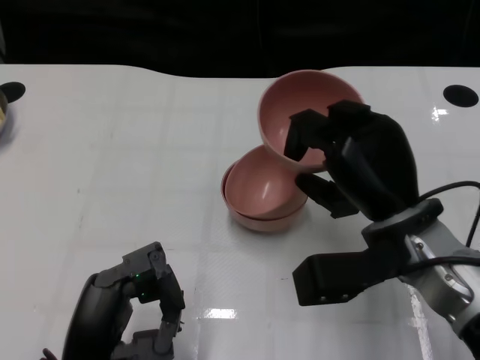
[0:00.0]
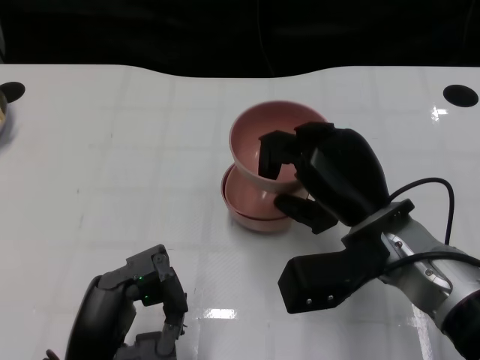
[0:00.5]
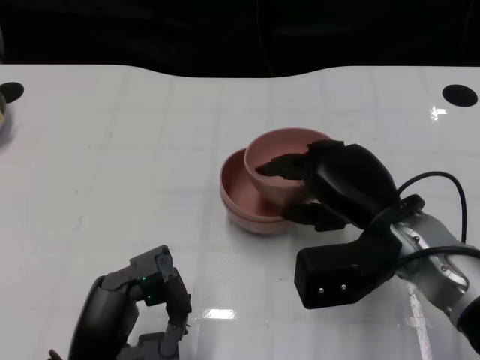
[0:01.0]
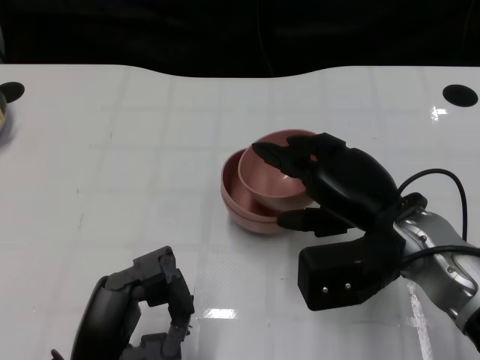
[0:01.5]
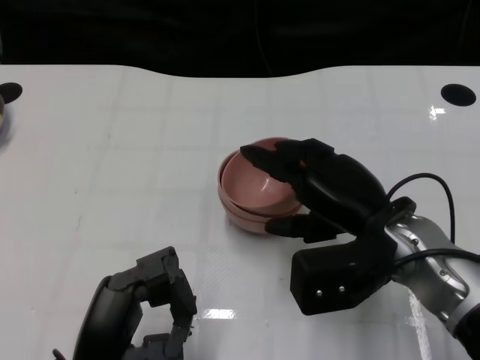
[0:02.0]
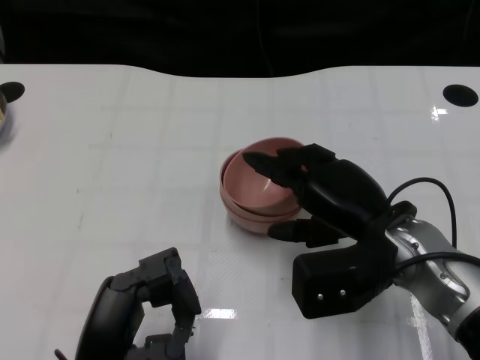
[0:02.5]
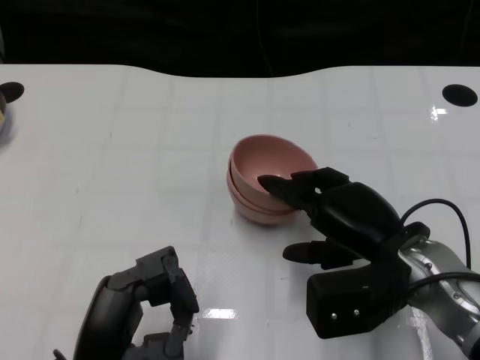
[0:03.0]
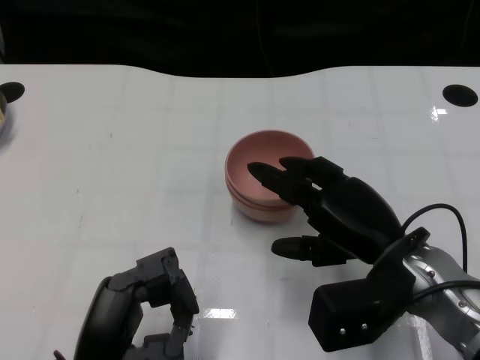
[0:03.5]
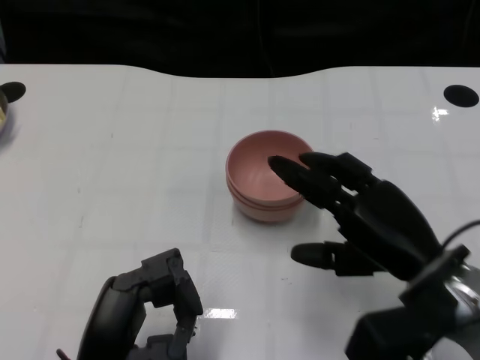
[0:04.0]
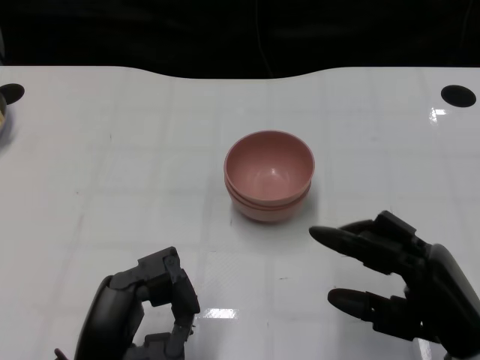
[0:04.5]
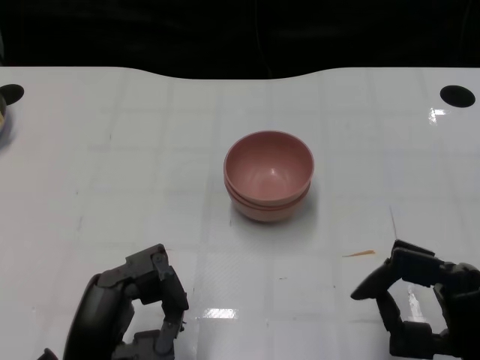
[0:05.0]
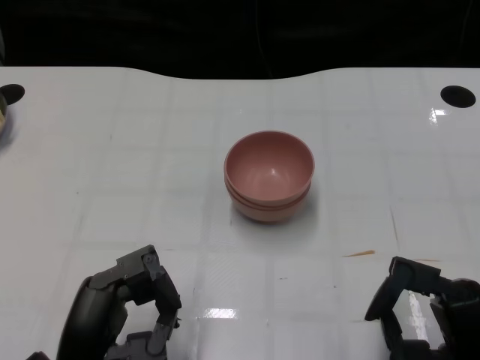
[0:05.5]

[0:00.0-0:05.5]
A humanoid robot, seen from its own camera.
Task of the whole recording: Pick up the bowl on one side of the table and place it on top of the middle bowl, then pick up the bowl on the other side of the table and place it on top of the middle bowls.
Step, 0:00.0 to 0:03.5: Place the bowl on the right onto the bowl in the middle with right gripper.
0:02.0 to 0:03.5: The hands move only a little.
0:03.5 to 0:05.5: The right hand goes approximately 15 cm backward and to the right.

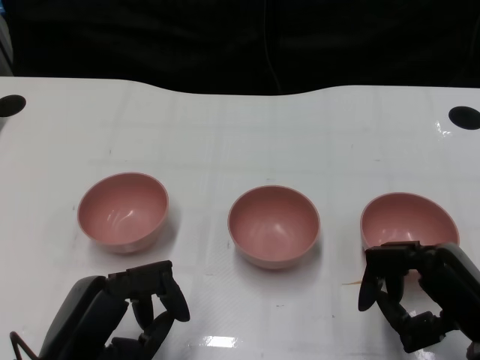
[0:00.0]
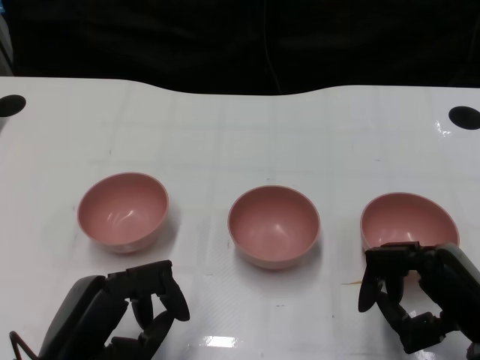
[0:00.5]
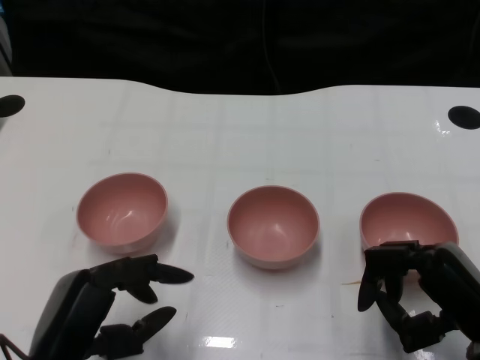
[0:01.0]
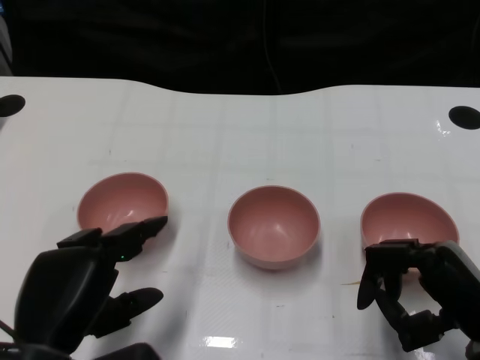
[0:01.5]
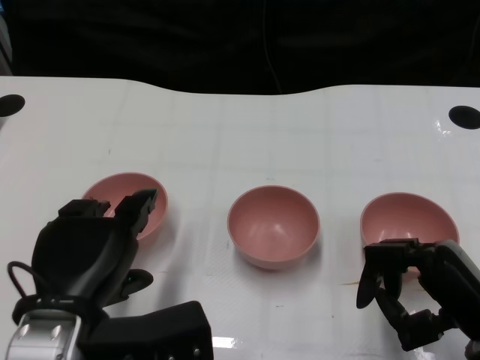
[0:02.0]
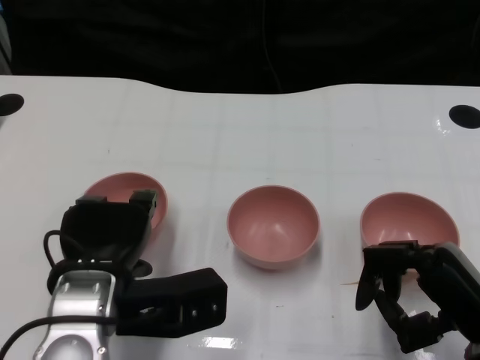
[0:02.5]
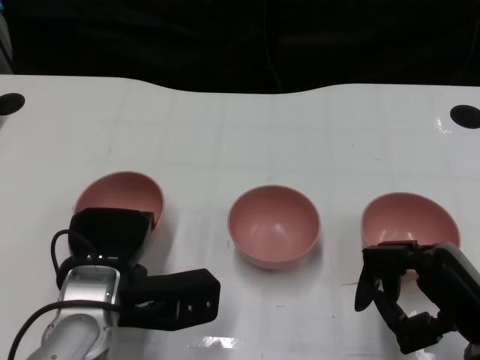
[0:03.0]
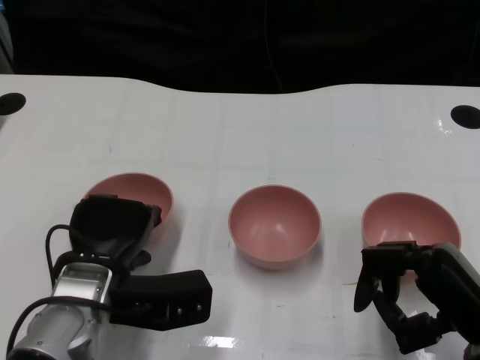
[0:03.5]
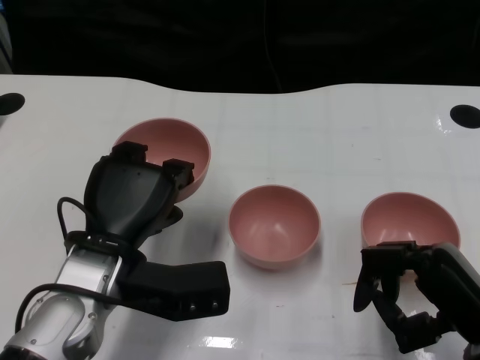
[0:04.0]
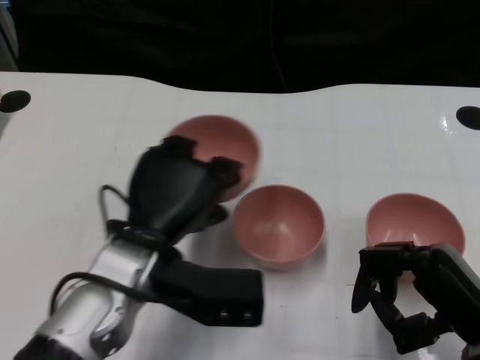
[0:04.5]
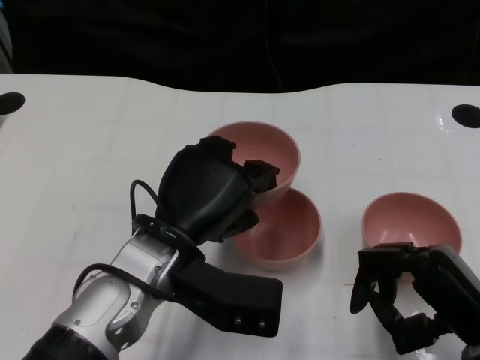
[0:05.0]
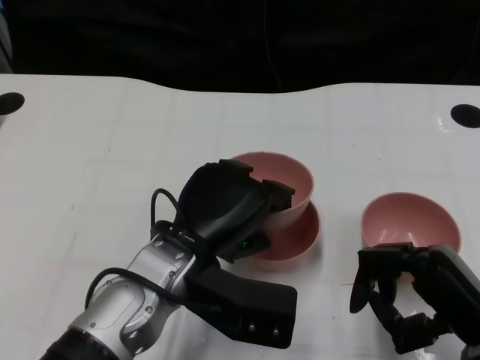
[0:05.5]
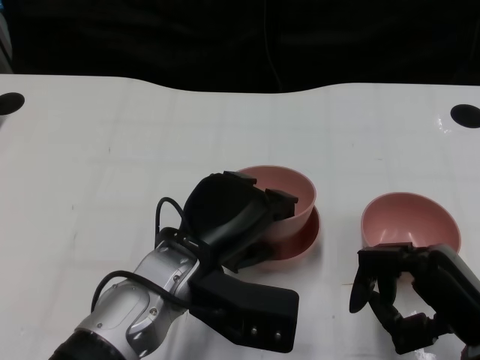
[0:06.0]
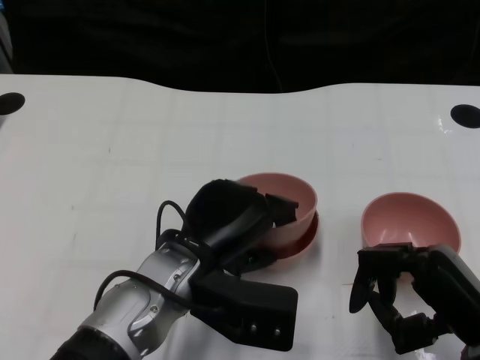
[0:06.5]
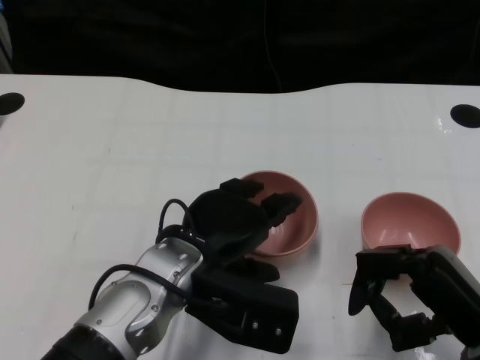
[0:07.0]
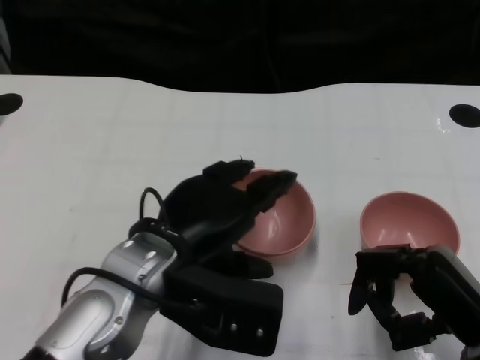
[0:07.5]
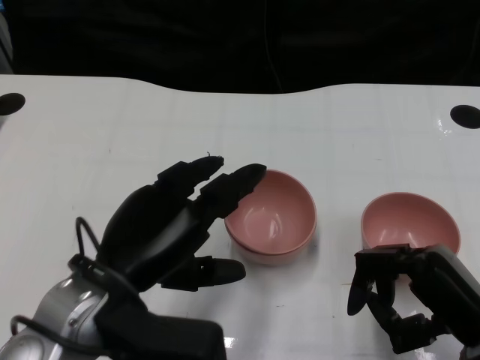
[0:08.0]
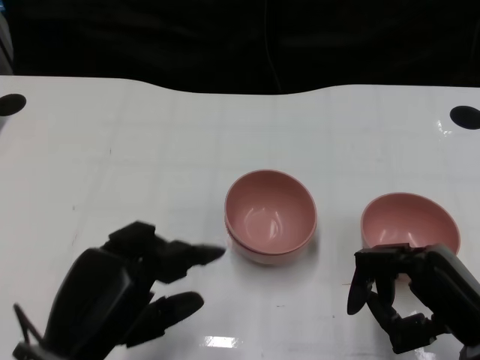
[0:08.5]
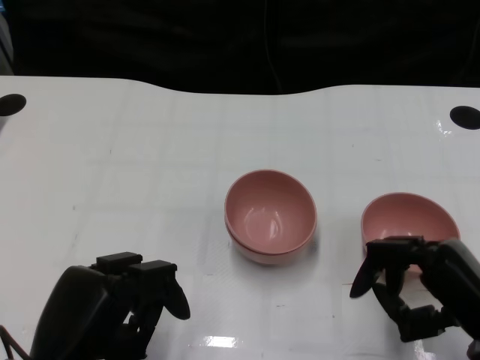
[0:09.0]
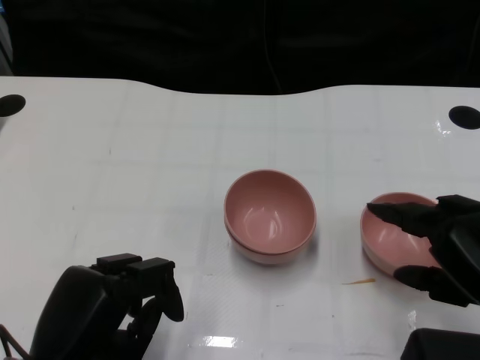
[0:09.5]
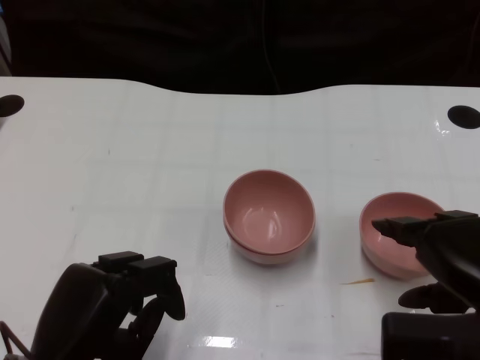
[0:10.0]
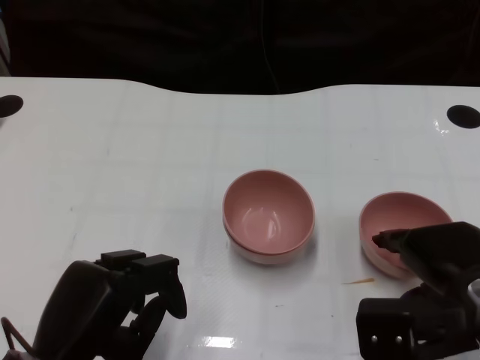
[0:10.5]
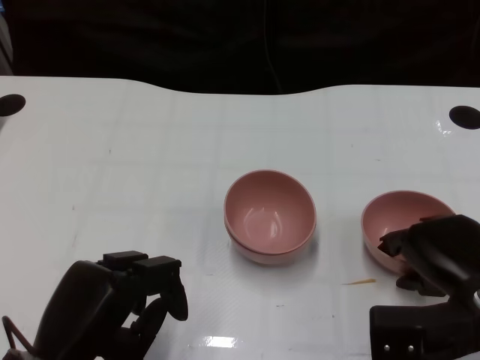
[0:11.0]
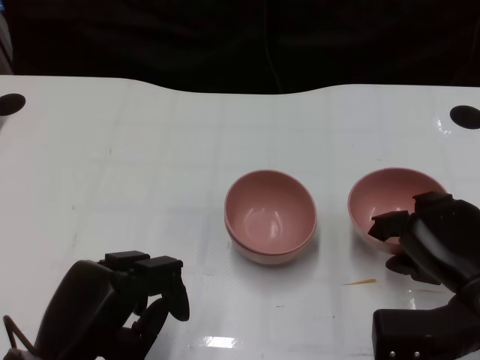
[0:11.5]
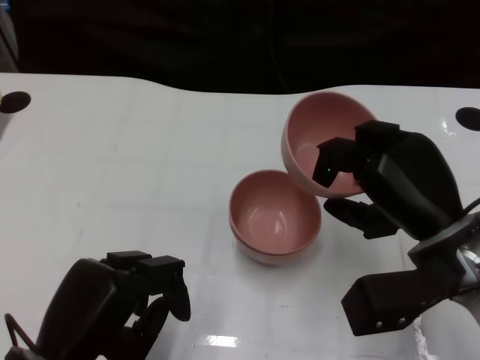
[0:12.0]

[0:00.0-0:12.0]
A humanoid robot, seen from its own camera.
Task of the whole recording: Pick up the bowl on one side of the table and place it on top of the middle bowl, then pick up the bowl on the other side of the table and place it on top of the middle bowls.
Step, 0:01.0 to 0:03.0: Grasp the bowl on the left with the left gripper.
Step, 0:04.0 to 0:07.5: Place the bowl on the left onto the bowl in the middle with left gripper.
Step, 0:08.0 to 0:11.0: Grasp the bowl on the right with the right gripper.
0:02.0 to 0:04.0: The left hand travels forward by about 5 cm.
0:04.0 to 0:06.0: The left hand is displaced to the right by roughly 5 cm.
0:06.0 to 0:08.0: The left hand moves to the left, some 5 cm.
0:08.0 to 0:10.0: The left hand goes some 10 cm downward, backward and to the left. The right hand is displaced upward by about 5 cm.
0:10.0 to 0:12.0: The right hand is displaced forward by about 5 cm.

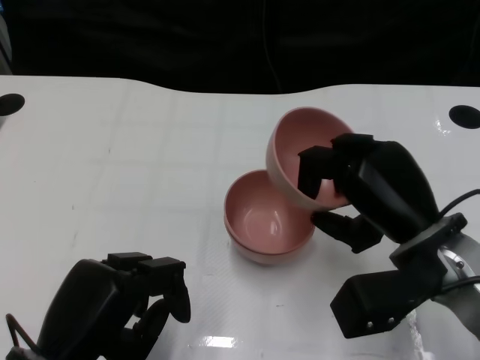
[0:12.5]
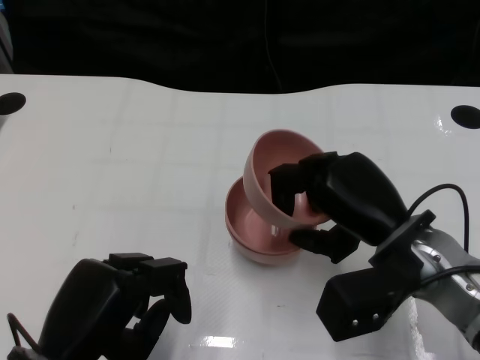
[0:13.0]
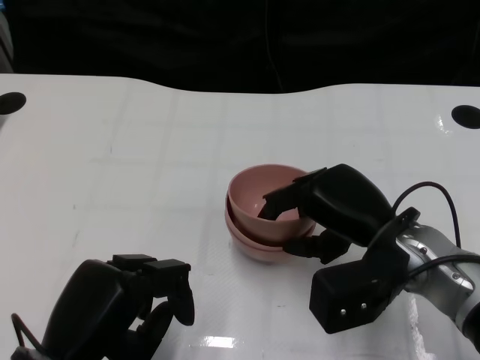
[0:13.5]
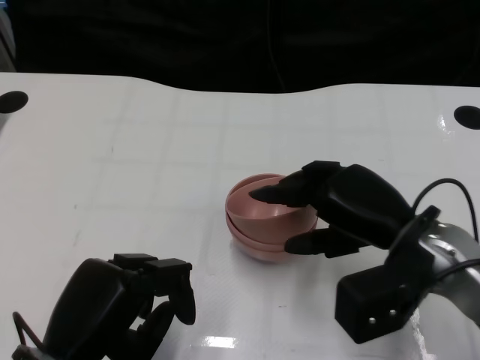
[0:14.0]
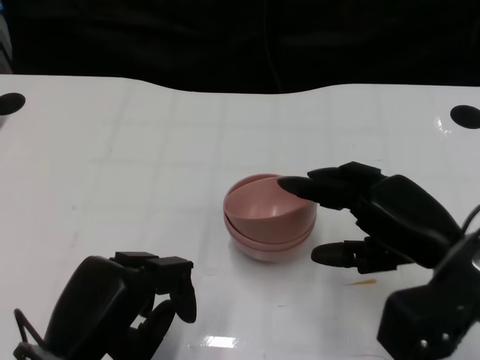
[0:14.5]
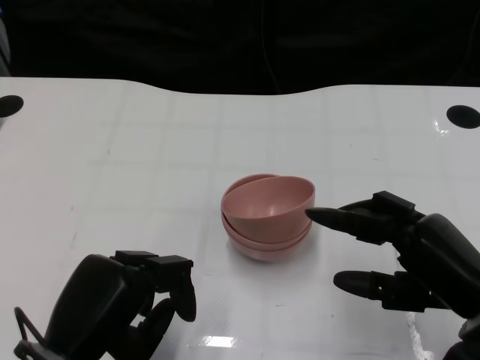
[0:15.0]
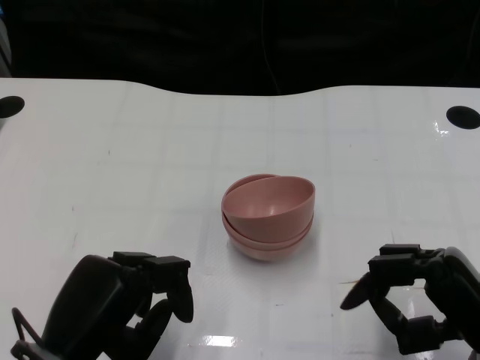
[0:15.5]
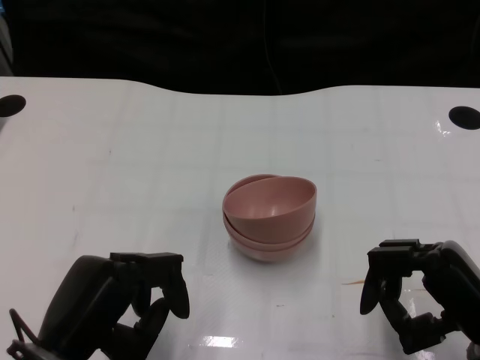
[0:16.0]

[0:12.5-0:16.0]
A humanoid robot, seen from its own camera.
Task of the whole recording: Pick up the bowl on one side of the table and place it on top of the middle bowl, then pick up the bowl on the other side of the table and place it on top of the middle bowls.
0:14.5 to 0:16.0: The right hand goes about 10 cm downward and backward.

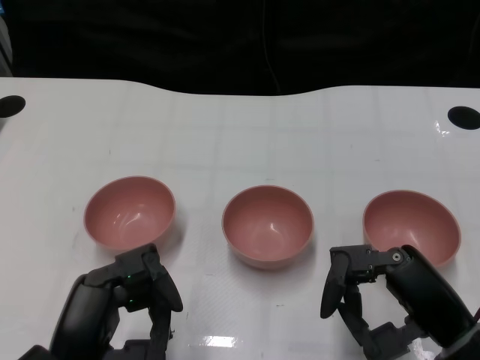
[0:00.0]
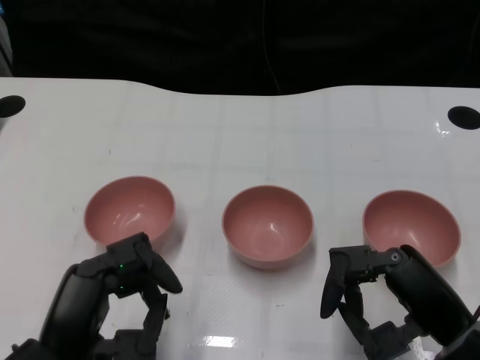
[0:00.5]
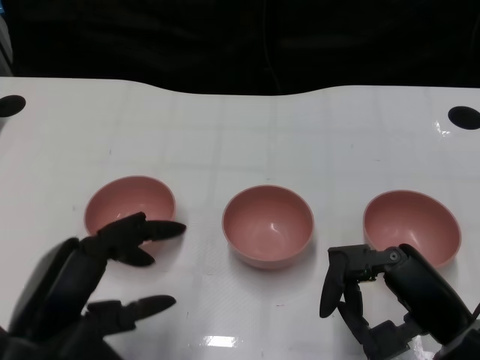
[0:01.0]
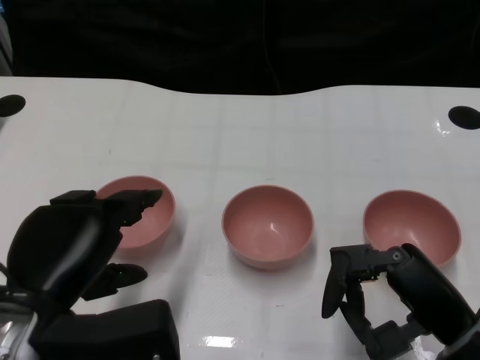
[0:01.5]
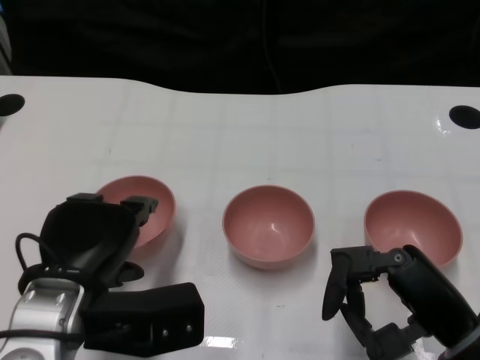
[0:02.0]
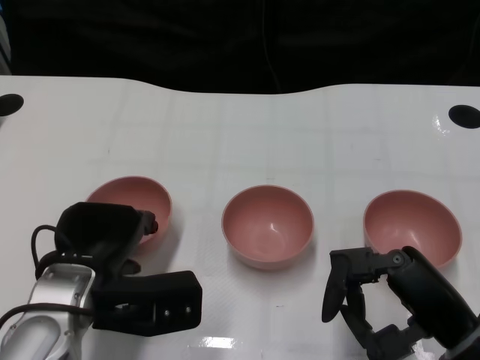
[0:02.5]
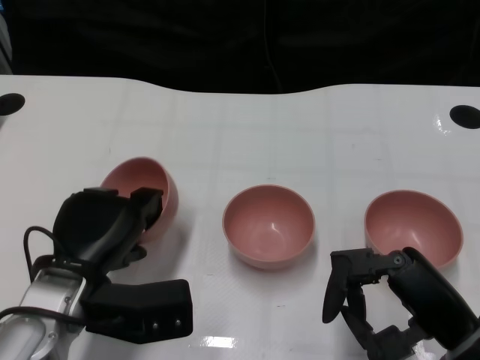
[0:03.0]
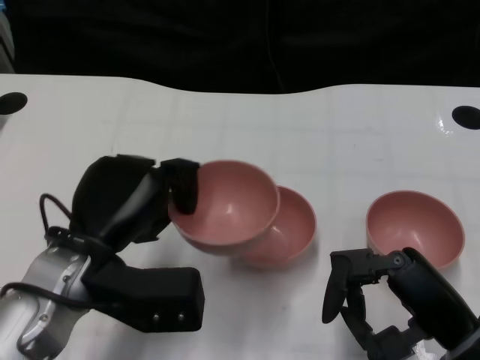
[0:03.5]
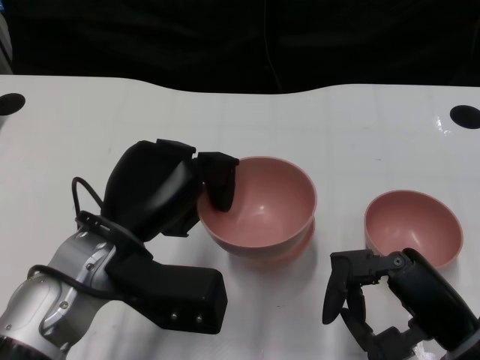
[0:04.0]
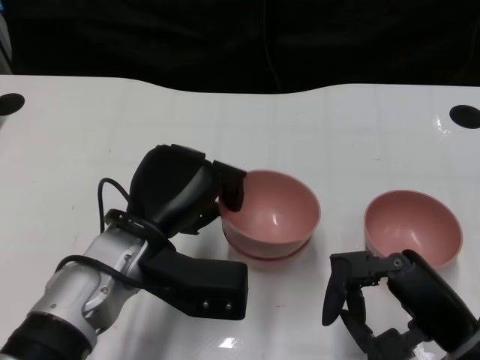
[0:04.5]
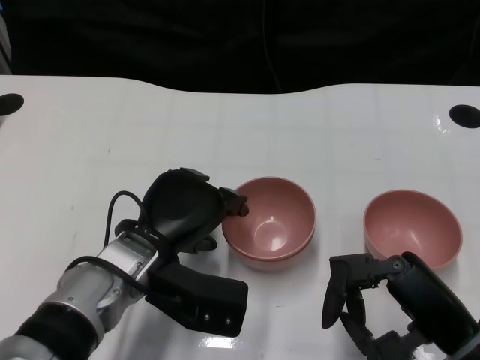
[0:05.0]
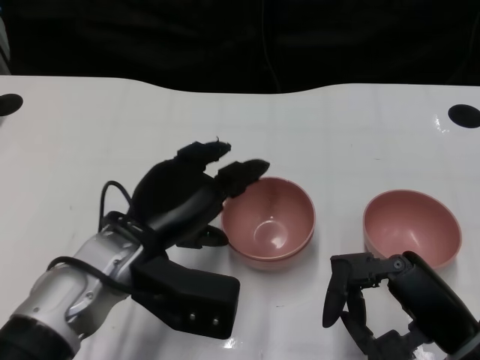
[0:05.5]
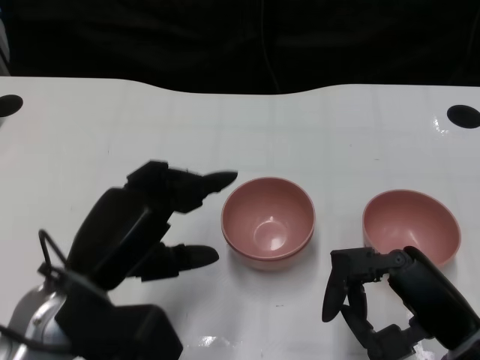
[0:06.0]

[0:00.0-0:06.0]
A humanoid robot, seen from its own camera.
Task of the whole recording: Pick up the bowl on one side of the table and place it on top of the middle bowl, then pick up the bowl on the other side of the table and place it on top of the middle bowls.
Step, 0:00.5 to 0:03.0: Grasp the bowl on the left with the left gripper.
Step, 0:03.5 to 0:05.0: Place the bowl on the left onto the bowl in the middle with left gripper.
0:02.0 to 0:04.0: The left hand changes place by some 5 cm.
